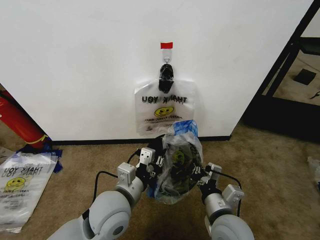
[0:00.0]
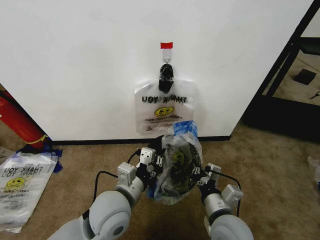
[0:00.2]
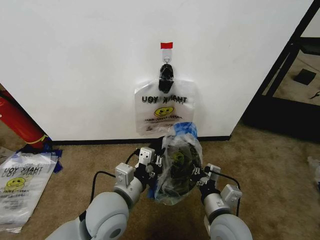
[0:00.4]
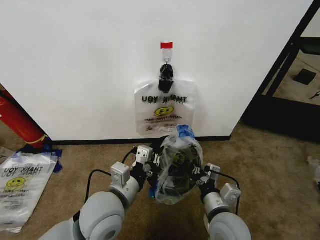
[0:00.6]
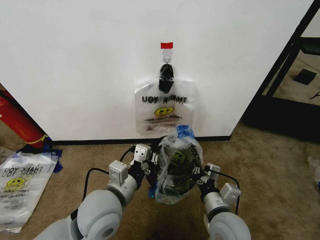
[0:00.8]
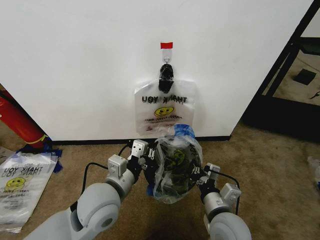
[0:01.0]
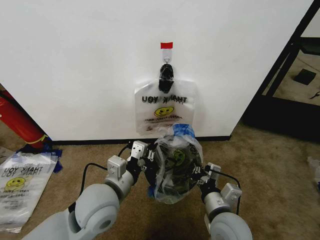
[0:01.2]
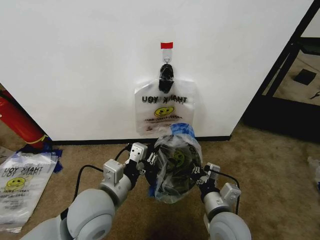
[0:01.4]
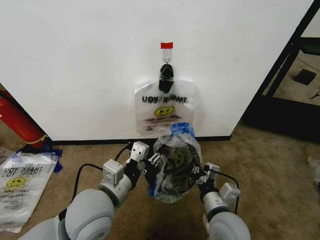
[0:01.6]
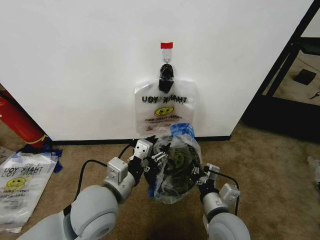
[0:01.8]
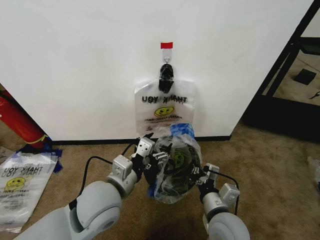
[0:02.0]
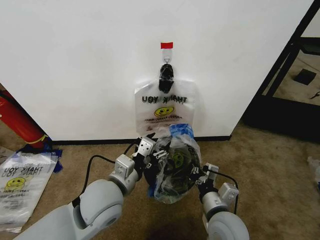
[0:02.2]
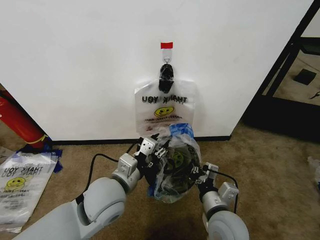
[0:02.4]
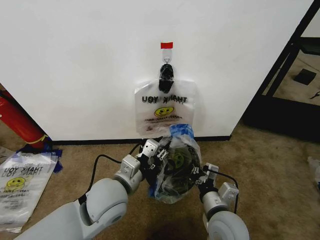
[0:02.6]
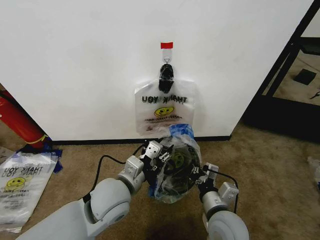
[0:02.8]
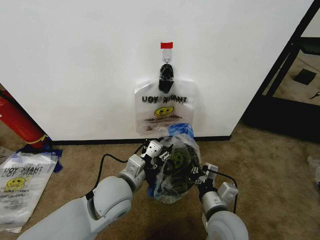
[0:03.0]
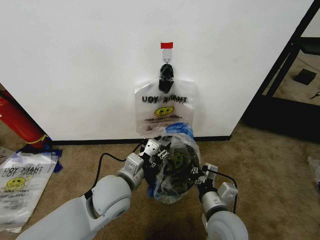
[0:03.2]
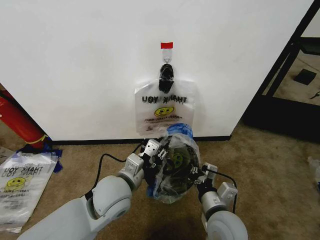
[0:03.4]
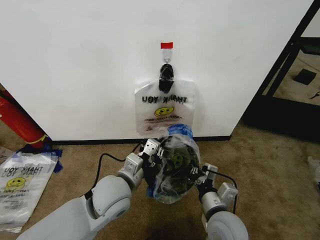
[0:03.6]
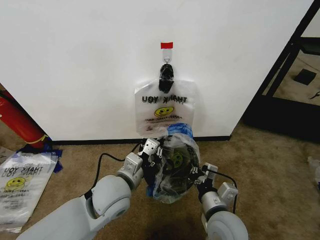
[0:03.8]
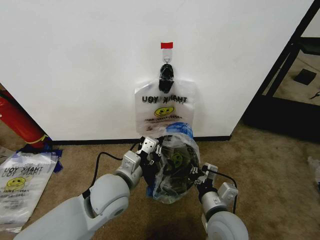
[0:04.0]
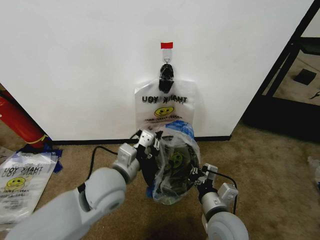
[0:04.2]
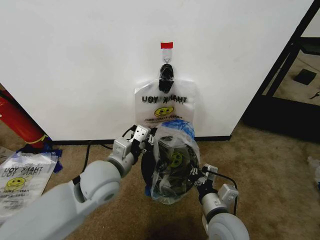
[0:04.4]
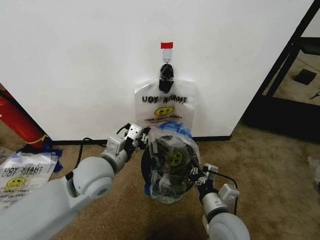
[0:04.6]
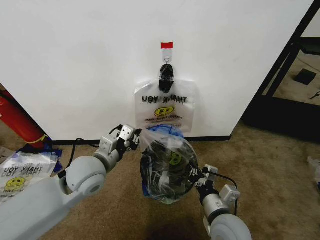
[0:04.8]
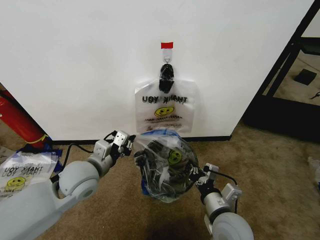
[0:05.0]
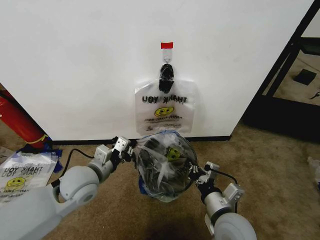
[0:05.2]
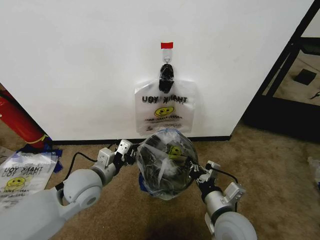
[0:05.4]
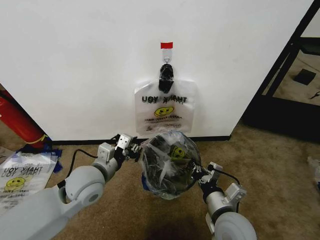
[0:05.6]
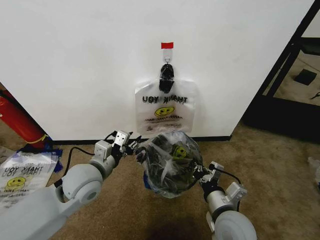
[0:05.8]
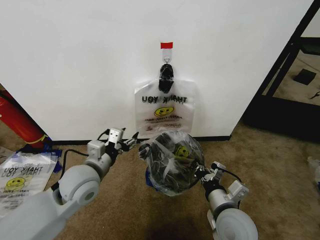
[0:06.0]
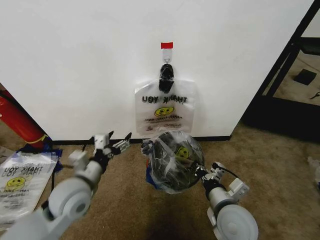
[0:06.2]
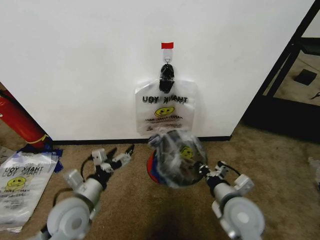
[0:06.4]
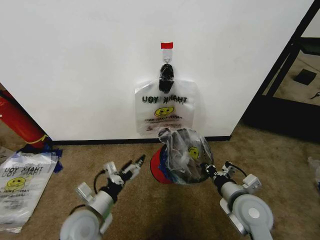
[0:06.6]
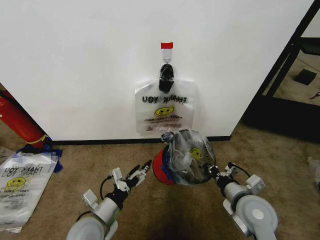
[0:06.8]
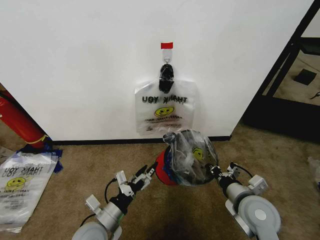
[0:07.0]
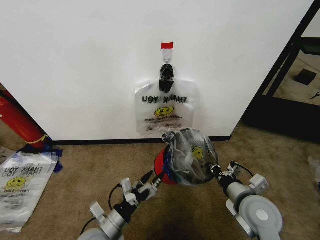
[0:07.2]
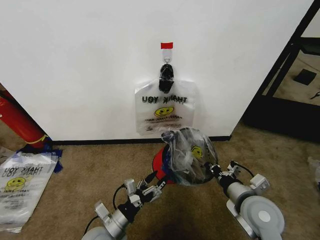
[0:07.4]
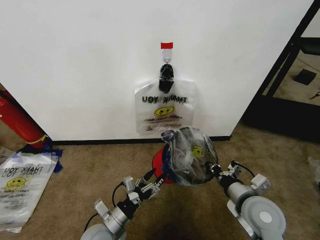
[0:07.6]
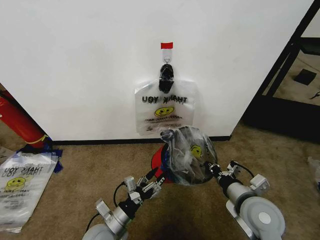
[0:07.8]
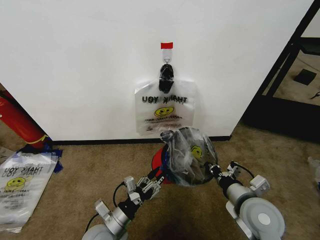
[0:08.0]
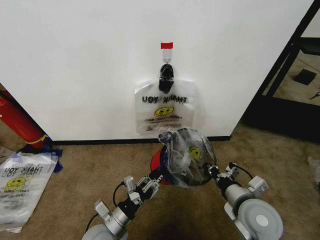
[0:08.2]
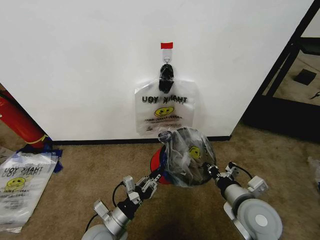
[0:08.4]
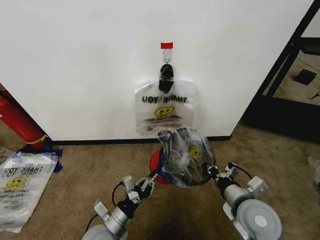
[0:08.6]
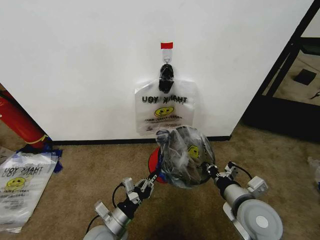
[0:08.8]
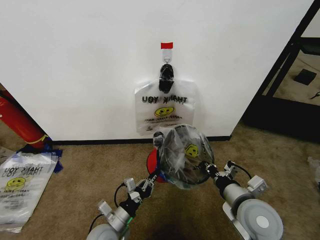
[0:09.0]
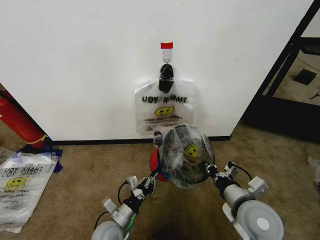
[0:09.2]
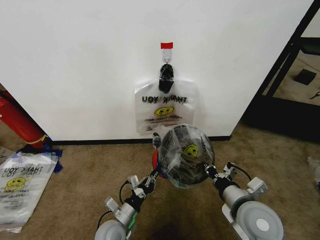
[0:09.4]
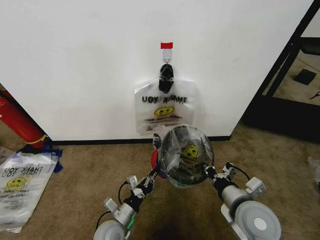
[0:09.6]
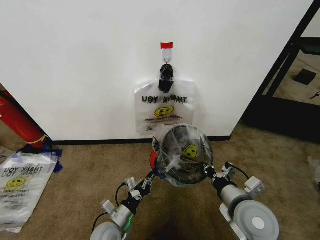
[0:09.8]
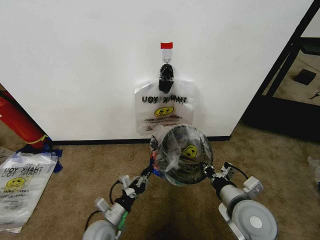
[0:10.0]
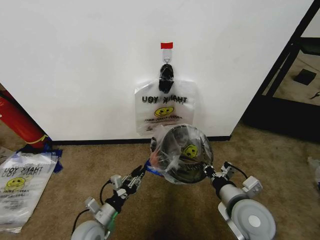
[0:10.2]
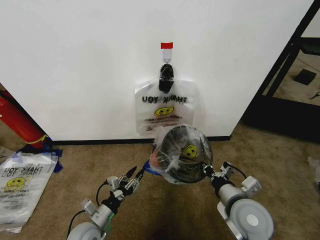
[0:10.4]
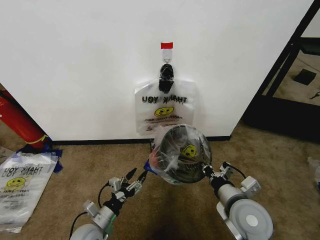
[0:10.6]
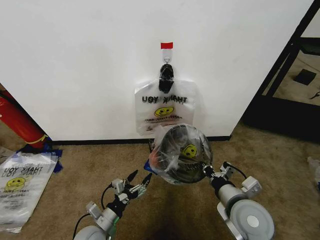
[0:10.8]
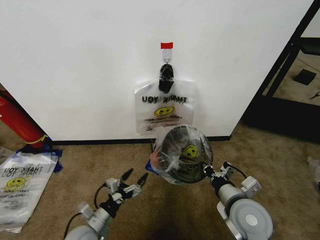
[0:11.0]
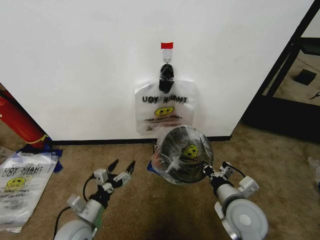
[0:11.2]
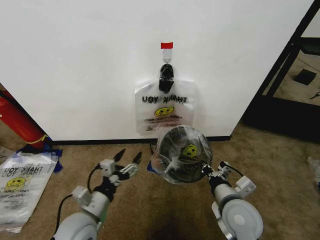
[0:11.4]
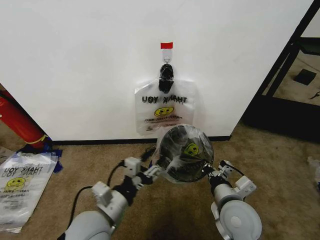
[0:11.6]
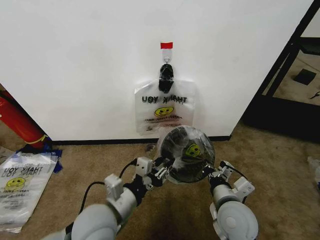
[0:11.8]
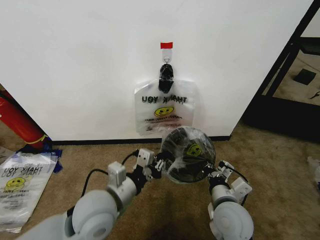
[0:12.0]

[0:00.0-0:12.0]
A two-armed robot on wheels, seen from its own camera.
Task of the whole recording: Pick up the garbage bag from the wall and place it over the trash bin.
0:00.0 to 0:01.6: The left gripper moves about 5 cm, and opens up.
0:01.6 to 0:03.0: The left gripper is displaced forward by roughly 5 cm.
0:03.0 to 0:04.4: The left gripper ends up approximately 5 cm from where it was, and closes.
0:04.4 to 0:06.0: The left gripper moves to the left, roughly 5 cm, and opens its fingers.
0:06.0 to 0:07.6: The right gripper travels to the right by some 5 cm. Meanwhile the left gripper travels downward and backward by some 20 cm.
0:07.6 to 0:09.0: The left gripper closes up.
0:09.0 to 0:10.4: The left gripper goes approximately 5 cm to the left, and opens up.
0:10.4 to 0:12.0: The left gripper heads upward and to the right, covering about 20 cm, and closes its fingers.

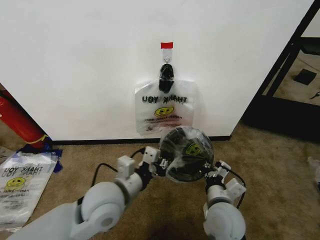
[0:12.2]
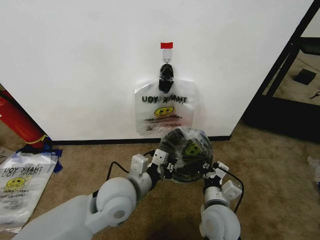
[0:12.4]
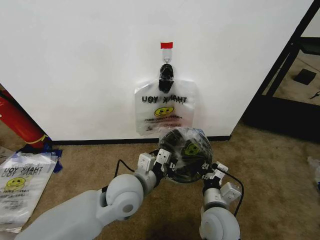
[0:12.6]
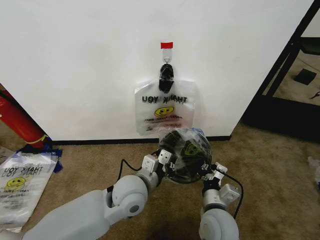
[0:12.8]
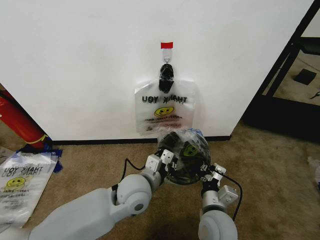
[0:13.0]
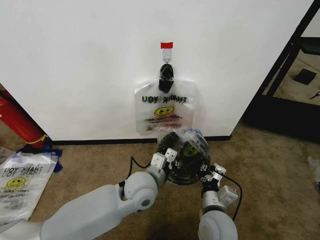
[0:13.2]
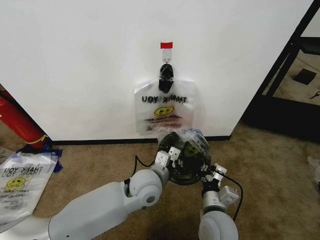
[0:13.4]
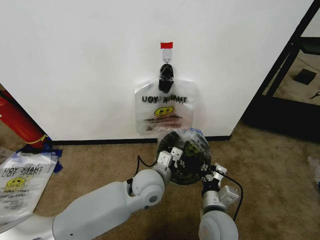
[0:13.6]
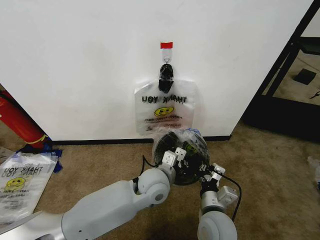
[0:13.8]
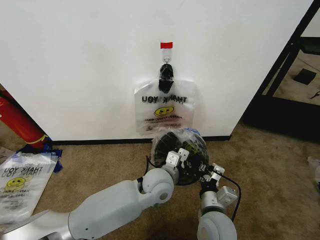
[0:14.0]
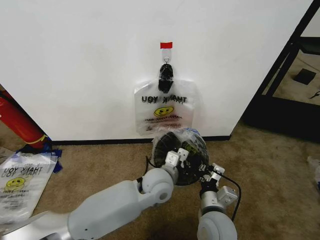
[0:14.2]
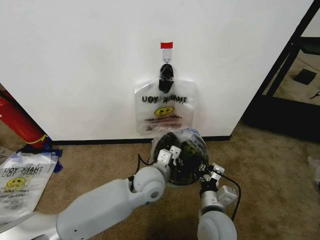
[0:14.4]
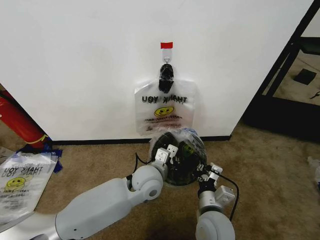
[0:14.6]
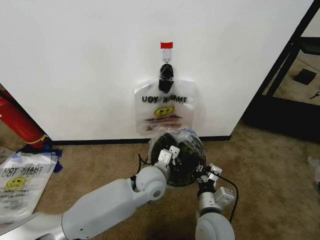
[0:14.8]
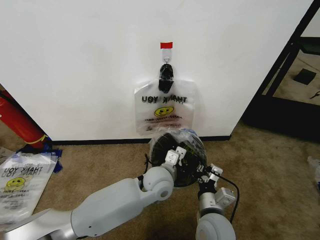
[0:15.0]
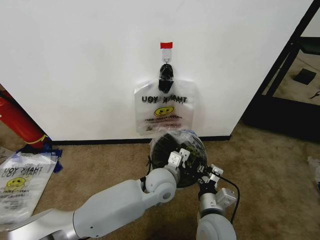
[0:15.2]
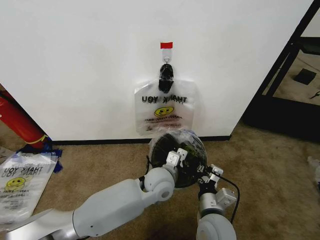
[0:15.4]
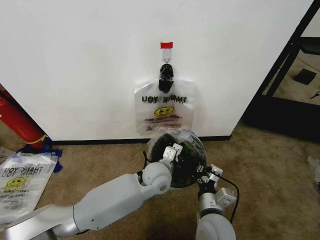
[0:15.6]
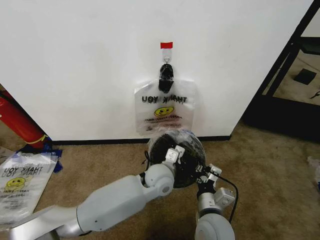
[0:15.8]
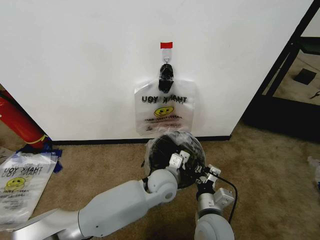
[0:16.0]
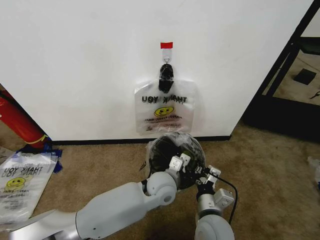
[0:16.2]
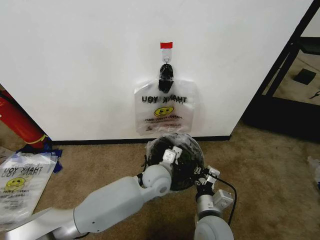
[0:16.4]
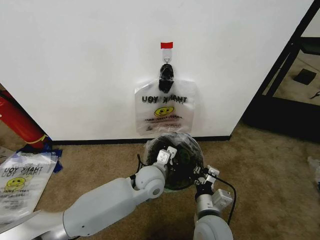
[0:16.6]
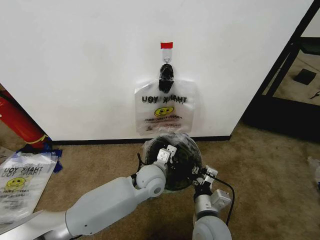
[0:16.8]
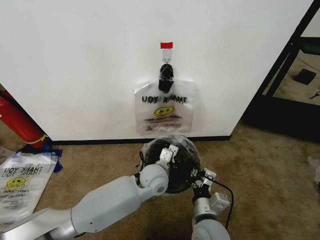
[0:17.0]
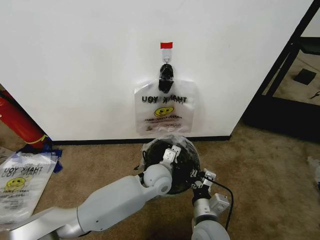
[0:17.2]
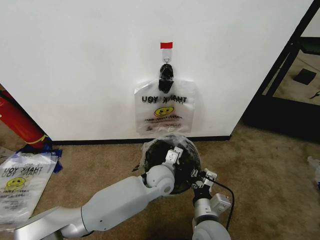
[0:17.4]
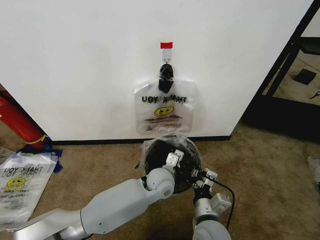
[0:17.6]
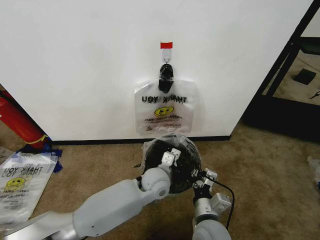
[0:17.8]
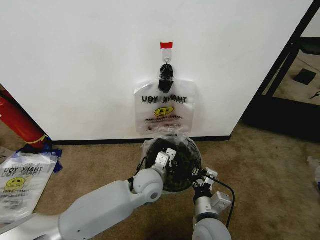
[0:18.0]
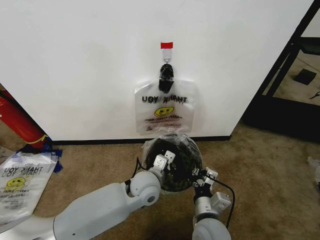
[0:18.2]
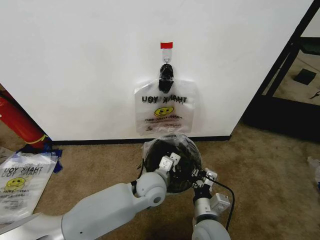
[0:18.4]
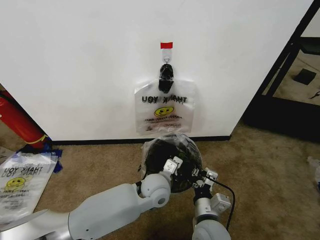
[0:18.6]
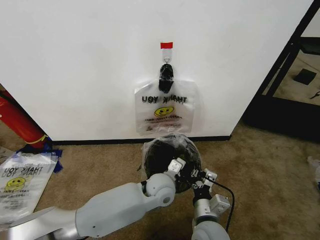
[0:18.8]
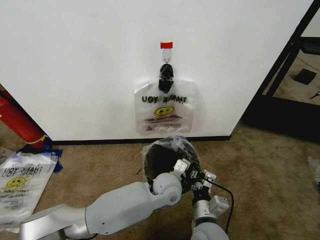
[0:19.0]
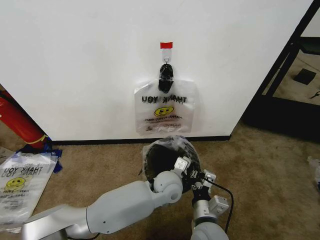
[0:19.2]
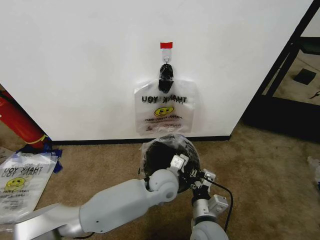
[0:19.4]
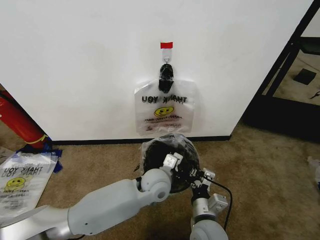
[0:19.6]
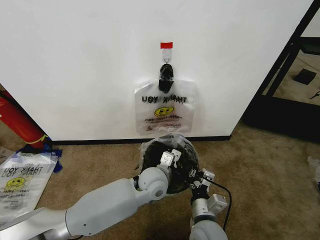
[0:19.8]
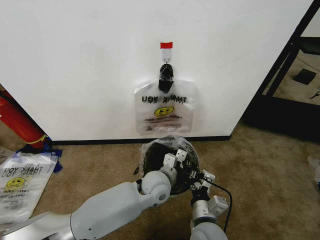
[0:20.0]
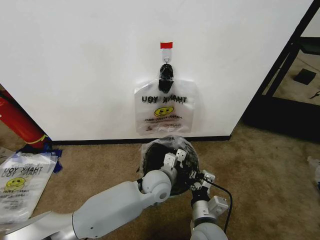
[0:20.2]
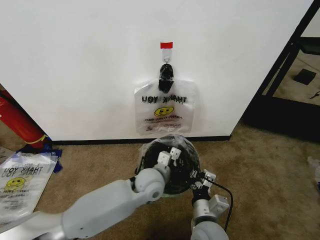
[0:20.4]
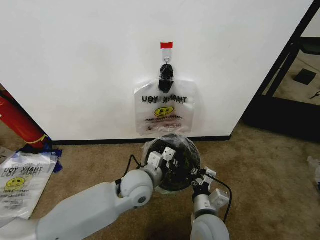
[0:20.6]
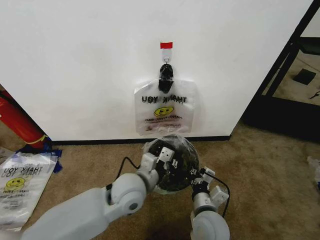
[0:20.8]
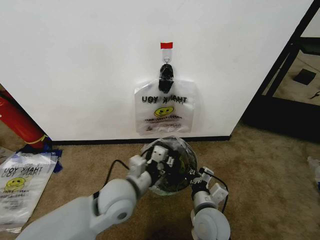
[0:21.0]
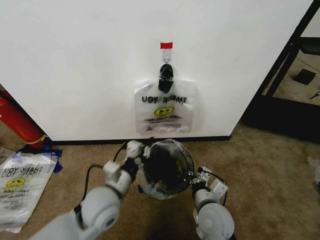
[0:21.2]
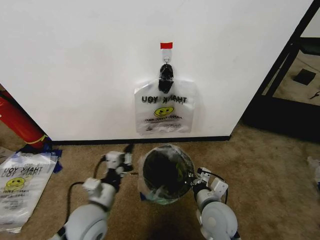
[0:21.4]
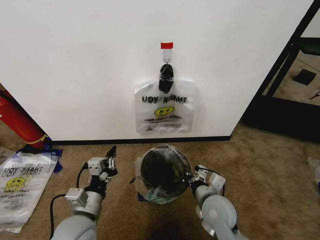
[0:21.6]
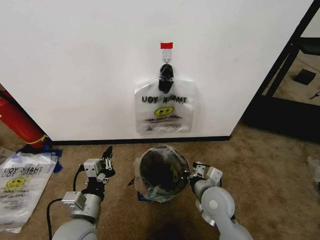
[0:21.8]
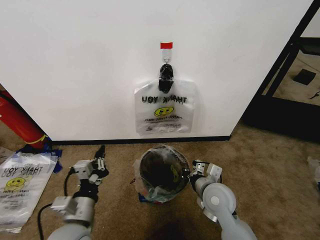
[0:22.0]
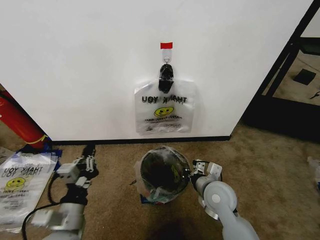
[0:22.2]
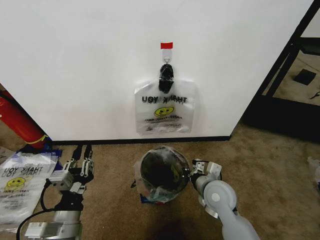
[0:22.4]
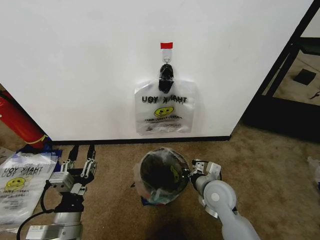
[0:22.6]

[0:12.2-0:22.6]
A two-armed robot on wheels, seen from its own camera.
Task of the whole recording: Pick up the garbage bag from the wall and place it over the trash bin.
0:12.2 to 0:13.6: The left gripper moves to the right, forward and downward, some 15 cm.
0:13.6 to 0:15.2: The grippers make only small movements.
0:15.2 to 0:18.2: The grippers make only small movements.
0:19.6 to 0:21.2: The left gripper travels to the left and backward by approximately 15 cm.
0:21.2 to 0:22.6: The right gripper is displaced forward by about 5 cm. Meanwhile the left gripper heads backward and to the left, covering approximately 15 cm, and opens.
